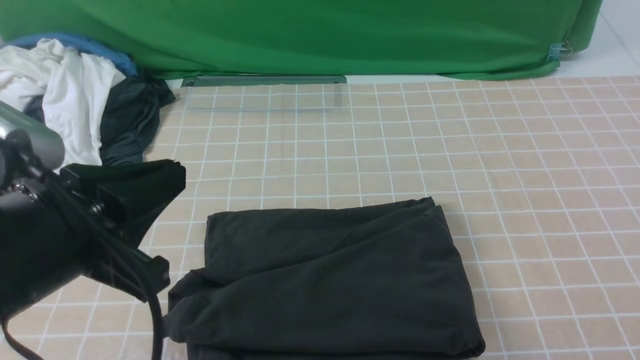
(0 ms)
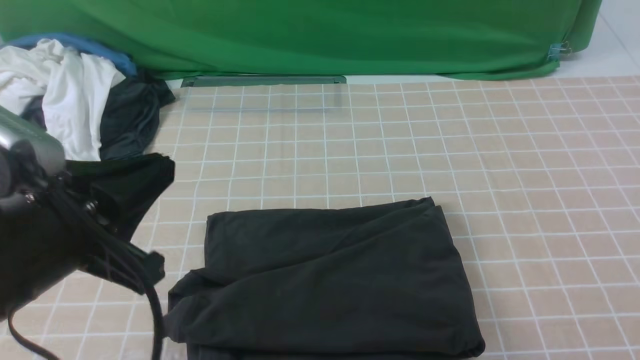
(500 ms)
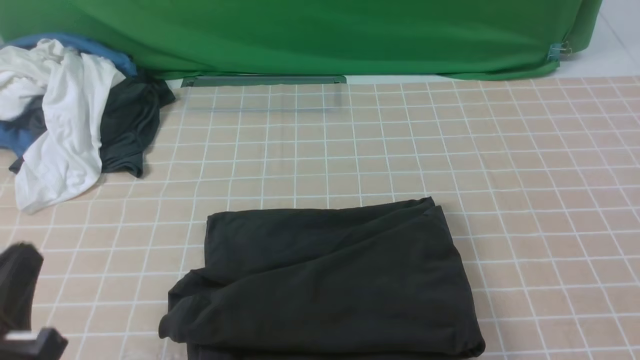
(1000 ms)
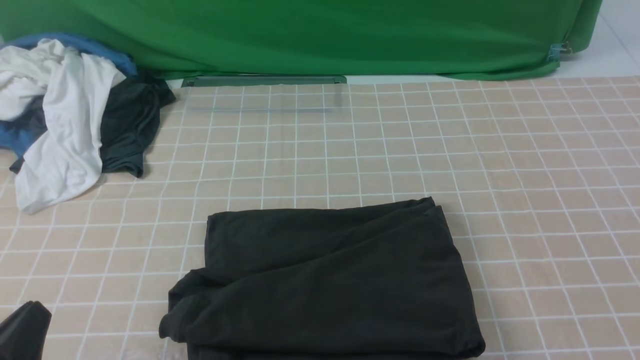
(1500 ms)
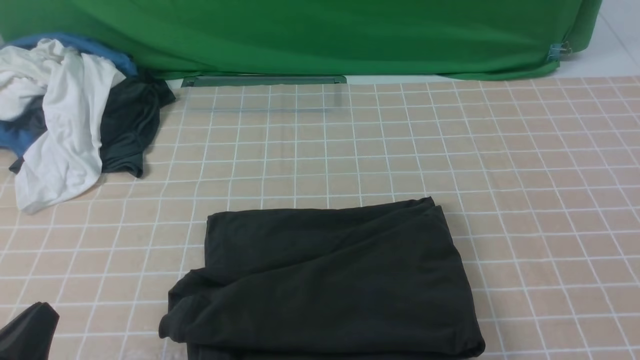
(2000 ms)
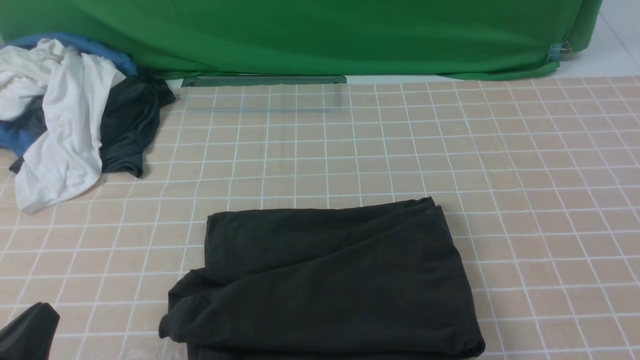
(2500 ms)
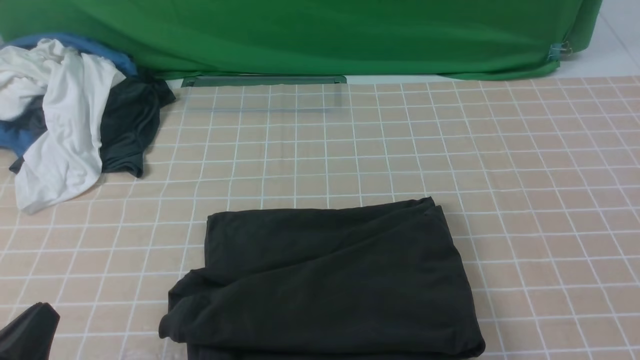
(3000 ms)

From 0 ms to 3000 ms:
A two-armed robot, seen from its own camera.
From 0 ms to 1500 ms: The left gripper moves downward, backward and to the left, roughly 15 cm.
From 1500 ms to 3000 ms: Neither gripper changes place.
